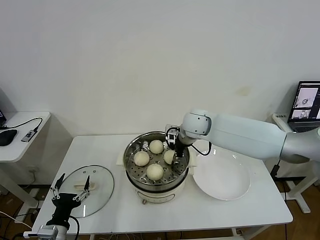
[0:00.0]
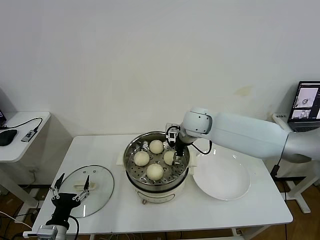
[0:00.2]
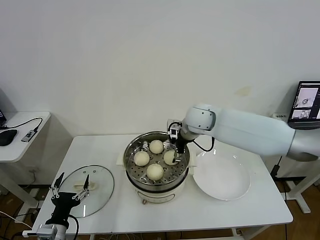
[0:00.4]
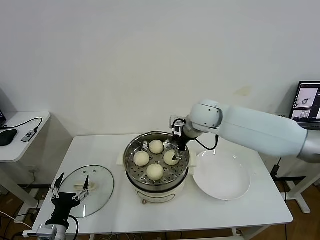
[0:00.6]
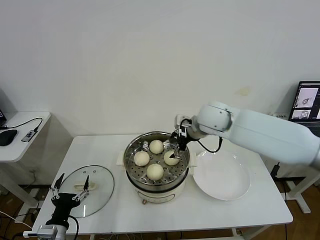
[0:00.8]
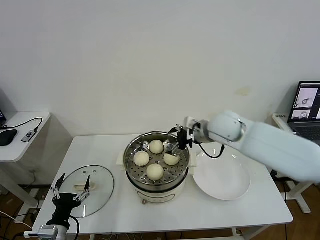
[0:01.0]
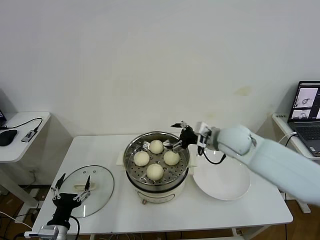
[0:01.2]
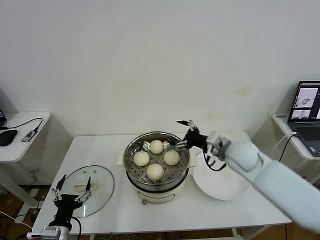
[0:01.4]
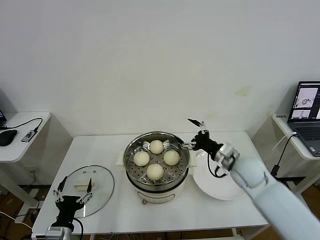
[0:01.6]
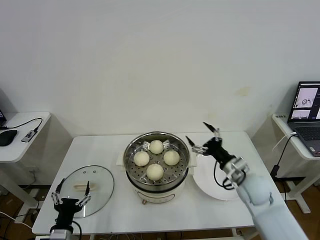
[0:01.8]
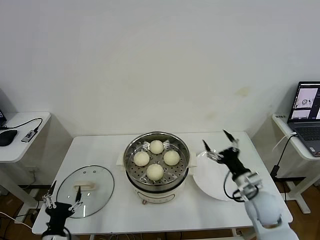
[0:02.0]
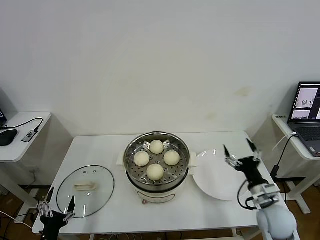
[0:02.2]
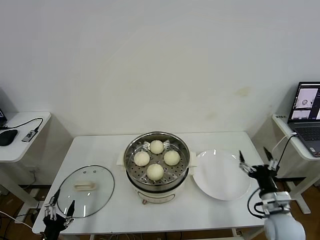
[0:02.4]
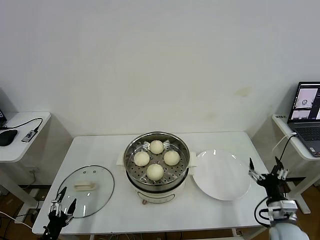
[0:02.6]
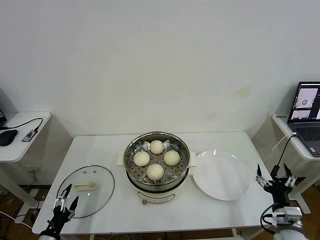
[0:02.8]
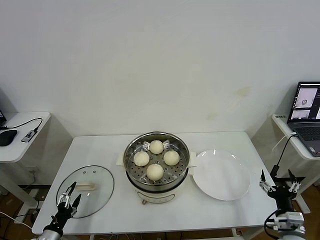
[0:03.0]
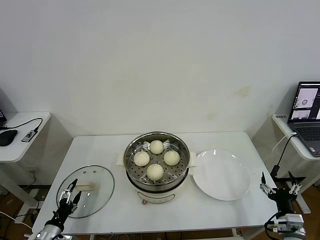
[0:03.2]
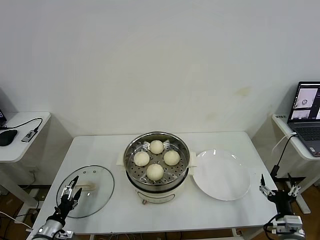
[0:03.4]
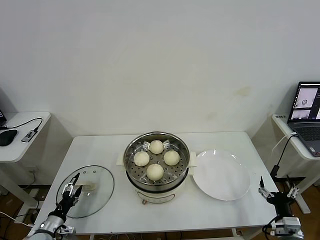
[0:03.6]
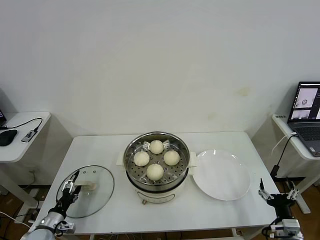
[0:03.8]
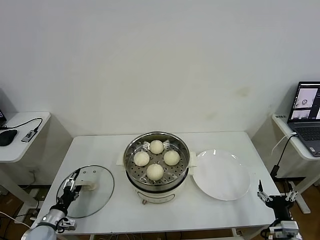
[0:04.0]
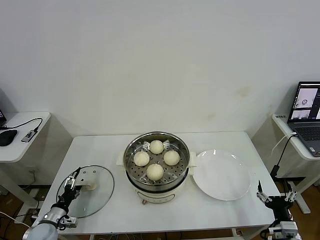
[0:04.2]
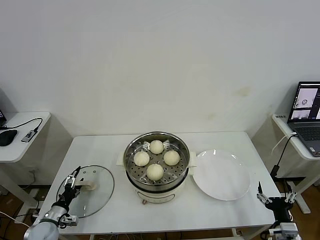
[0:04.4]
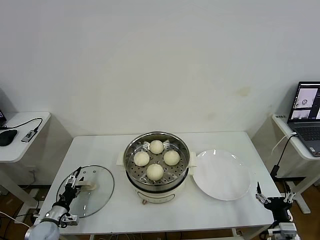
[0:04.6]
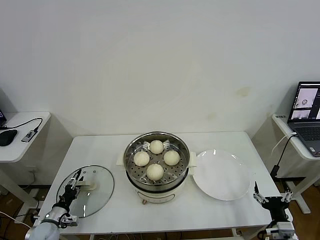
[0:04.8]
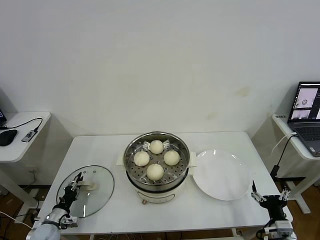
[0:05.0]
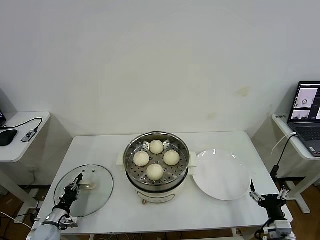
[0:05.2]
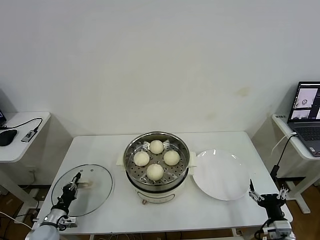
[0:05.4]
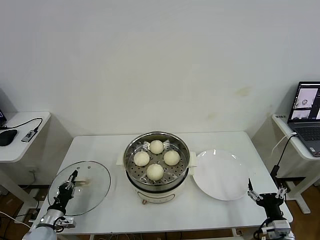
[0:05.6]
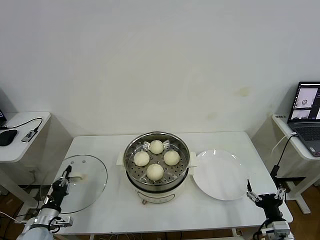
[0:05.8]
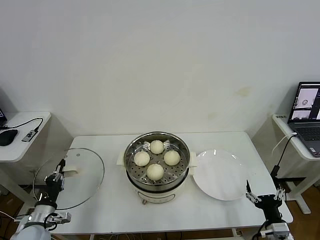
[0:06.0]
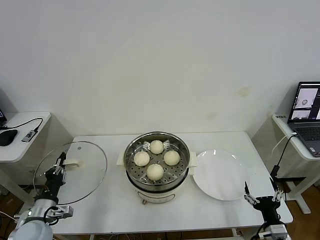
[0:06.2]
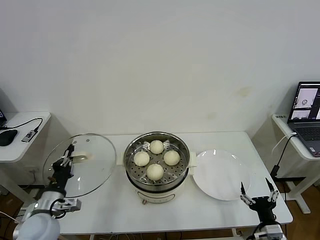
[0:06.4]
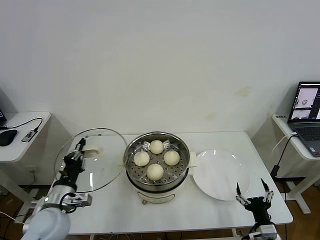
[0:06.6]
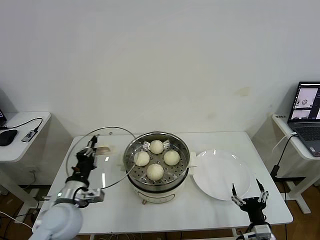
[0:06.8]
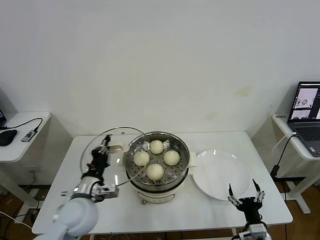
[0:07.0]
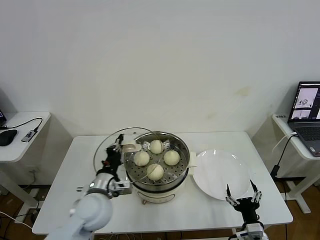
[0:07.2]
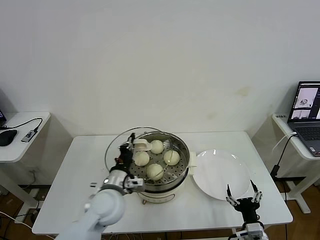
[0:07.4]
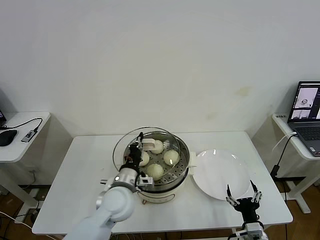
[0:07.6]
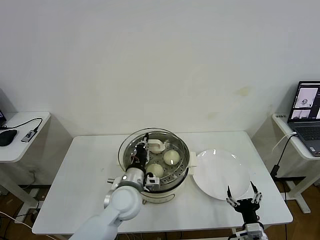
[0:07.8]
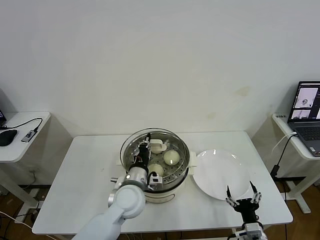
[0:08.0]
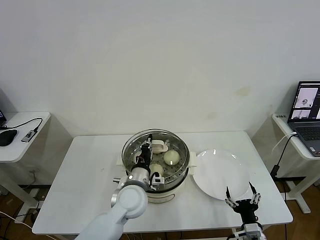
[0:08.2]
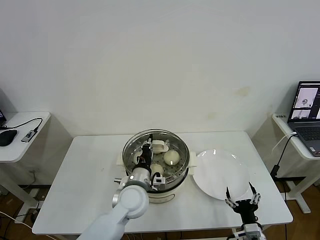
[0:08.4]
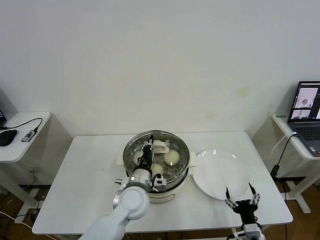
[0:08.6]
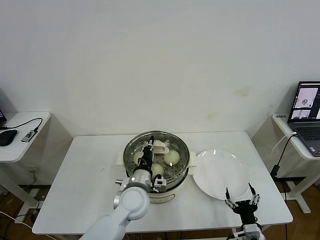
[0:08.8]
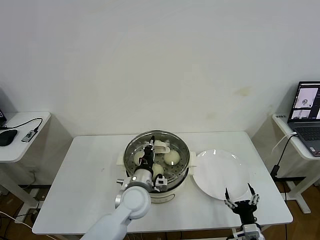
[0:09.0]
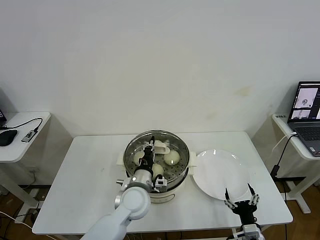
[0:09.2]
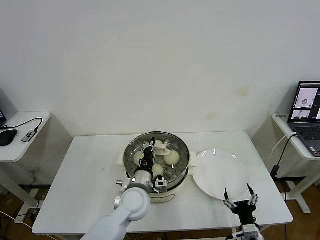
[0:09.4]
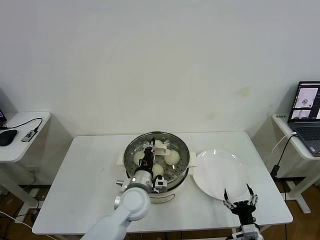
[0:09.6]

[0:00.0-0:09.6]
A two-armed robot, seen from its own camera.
Task of the whole recording: take steamed baozi put them in steamer then cover it.
Step, 0.6 to 5.4 s: Grasp the pot lid with left gripper.
0.0 to 1.6 s: The right gripper travels to the right, backward and downward by about 20 cm, and opens its fingers.
1.6 to 3.2 s: The right gripper moves backward, to the right and downward, about 25 cm. The left gripper shifts some 15 cm to the left and downward.
3.2 to 4.8 s: The left gripper is displaced forward by about 10 cm.
4.8 to 6.4 s: The left gripper goes approximately 20 cm upward and to the right, and closes up.
6.4 to 8.0 s: The right gripper shifts by some 5 cm, while the left gripper moves to the right, about 25 cm.
8.0 to 9.6 s: The grippers move only a little.

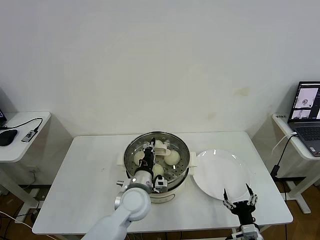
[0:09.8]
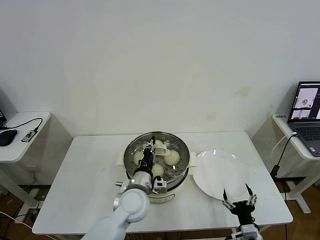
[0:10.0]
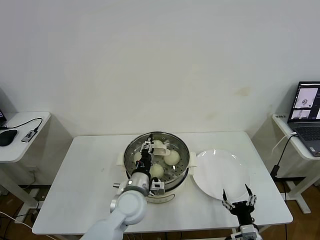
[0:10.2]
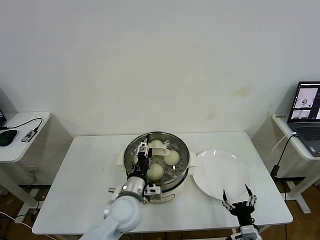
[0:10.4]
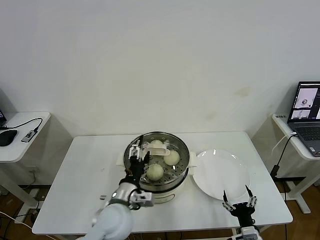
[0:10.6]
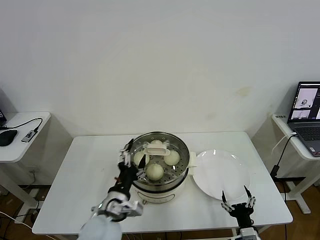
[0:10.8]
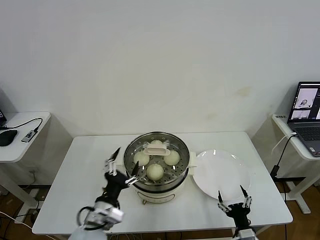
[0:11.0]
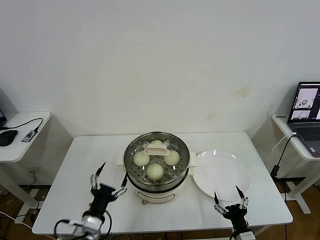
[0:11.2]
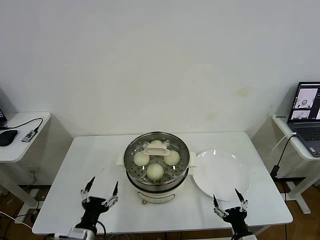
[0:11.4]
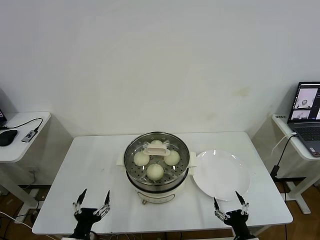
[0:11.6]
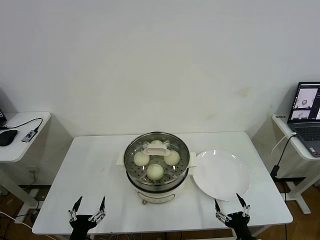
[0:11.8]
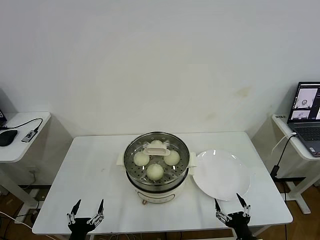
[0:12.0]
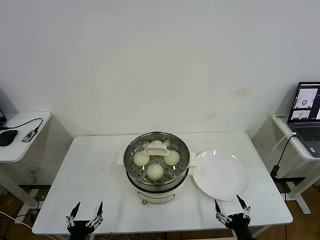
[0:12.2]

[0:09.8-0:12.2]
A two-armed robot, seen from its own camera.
Task of the whole recording: take steamed baozi put them in steamer then cover it.
9.8 to 11.0 s: The left gripper travels backward and to the left by roughly 15 cm, and opens its fingers.
11.0 to 12.2 s: The left gripper is displaced downward, to the left and backward by approximately 20 cm.

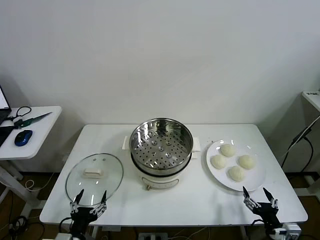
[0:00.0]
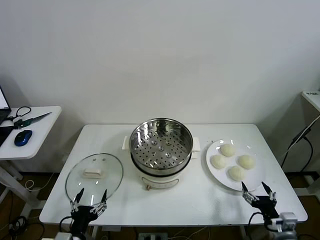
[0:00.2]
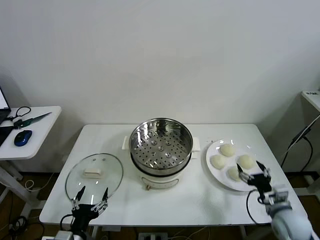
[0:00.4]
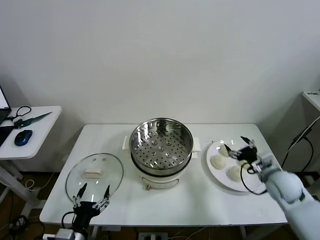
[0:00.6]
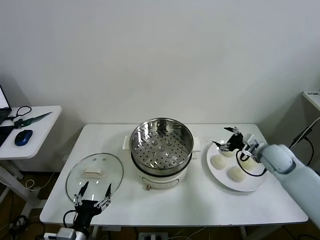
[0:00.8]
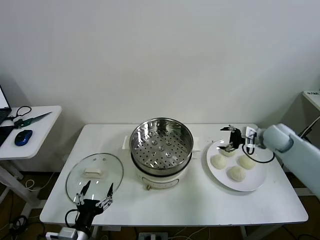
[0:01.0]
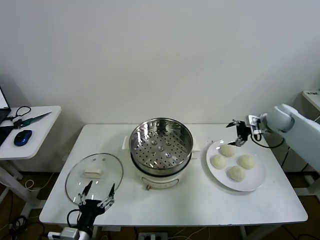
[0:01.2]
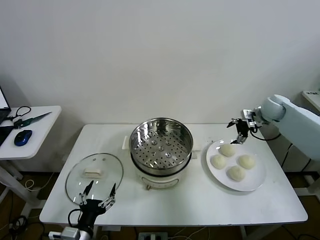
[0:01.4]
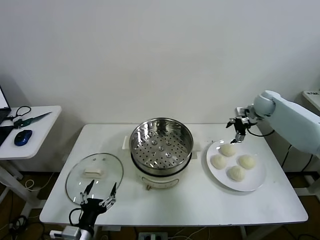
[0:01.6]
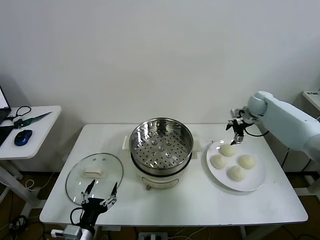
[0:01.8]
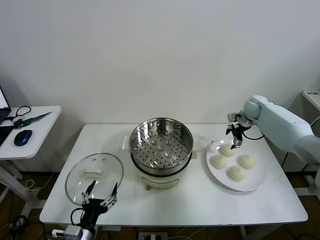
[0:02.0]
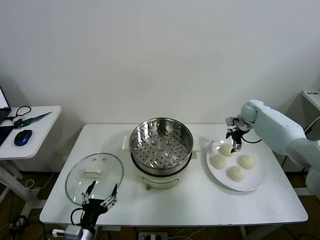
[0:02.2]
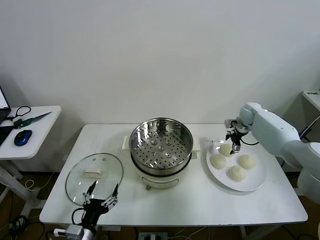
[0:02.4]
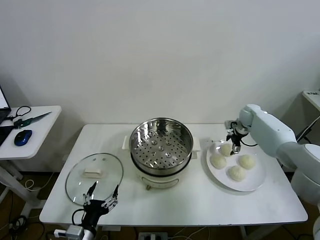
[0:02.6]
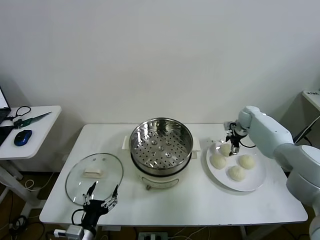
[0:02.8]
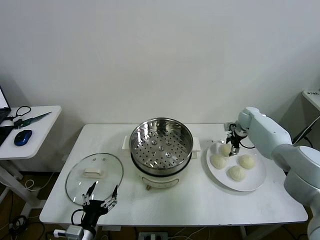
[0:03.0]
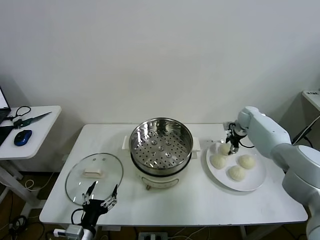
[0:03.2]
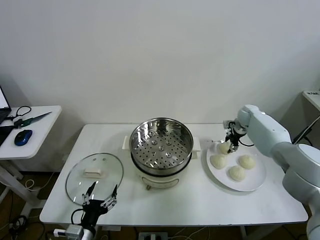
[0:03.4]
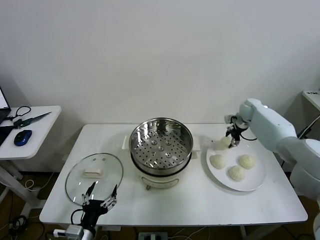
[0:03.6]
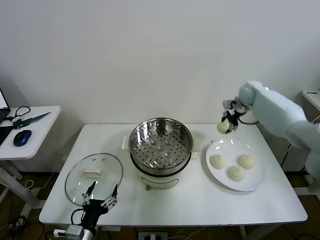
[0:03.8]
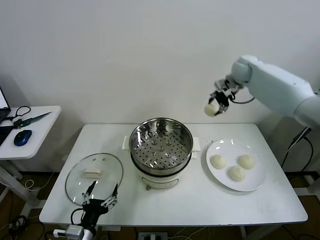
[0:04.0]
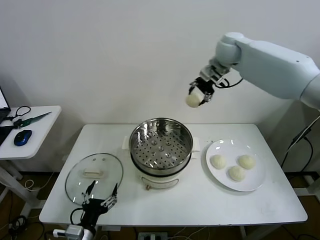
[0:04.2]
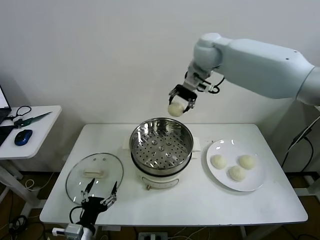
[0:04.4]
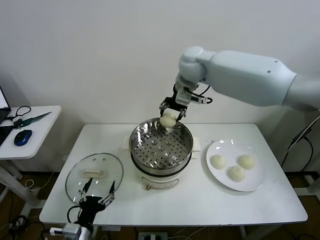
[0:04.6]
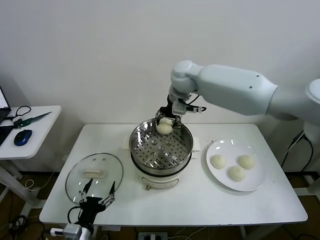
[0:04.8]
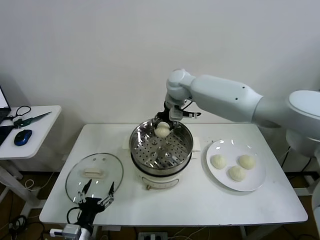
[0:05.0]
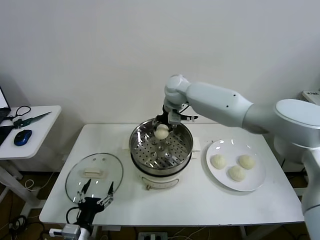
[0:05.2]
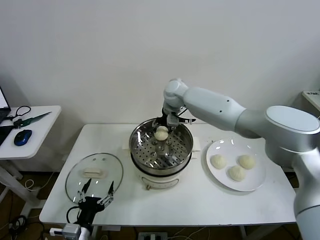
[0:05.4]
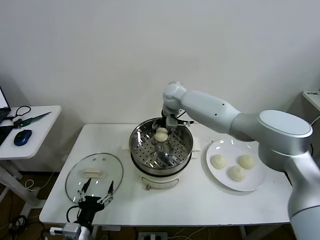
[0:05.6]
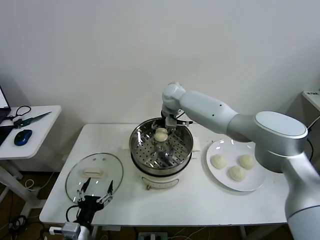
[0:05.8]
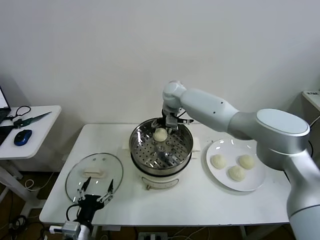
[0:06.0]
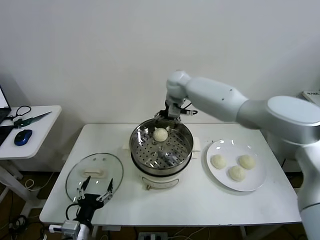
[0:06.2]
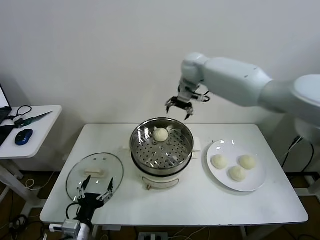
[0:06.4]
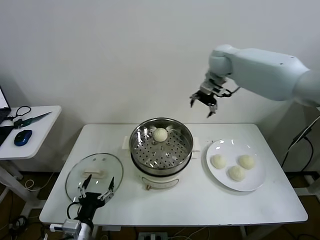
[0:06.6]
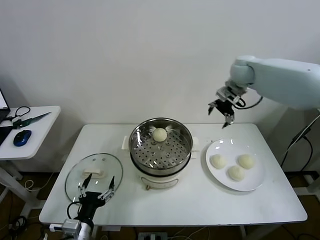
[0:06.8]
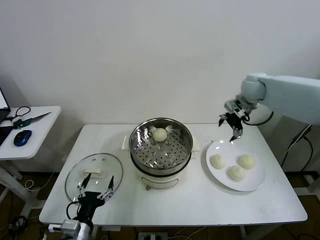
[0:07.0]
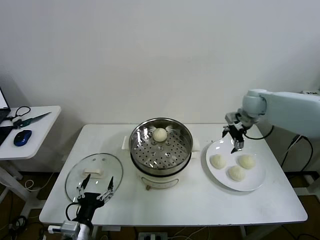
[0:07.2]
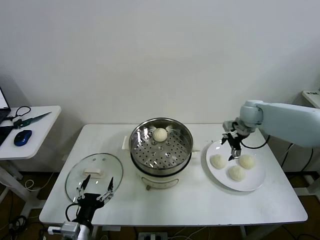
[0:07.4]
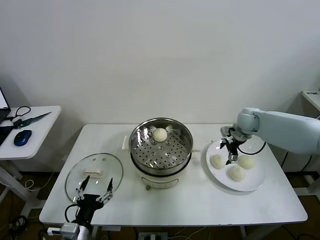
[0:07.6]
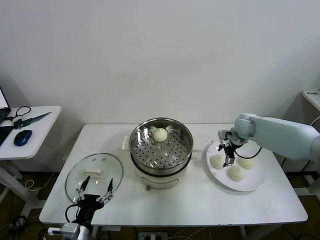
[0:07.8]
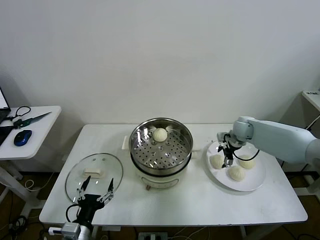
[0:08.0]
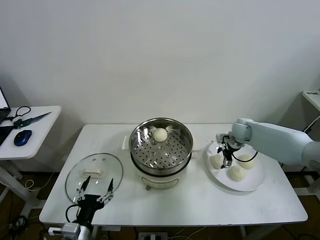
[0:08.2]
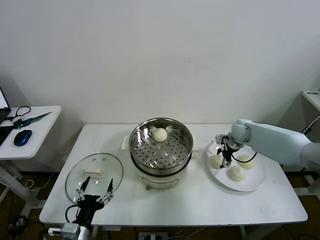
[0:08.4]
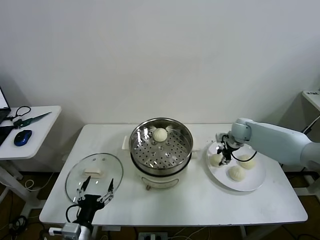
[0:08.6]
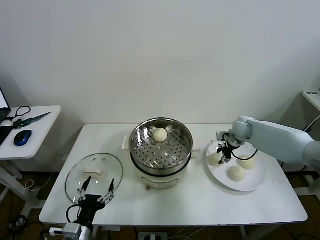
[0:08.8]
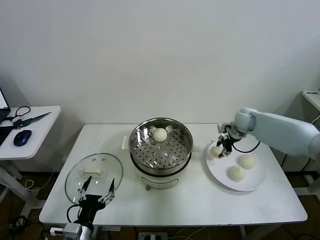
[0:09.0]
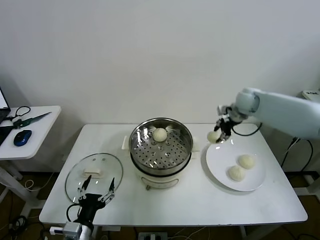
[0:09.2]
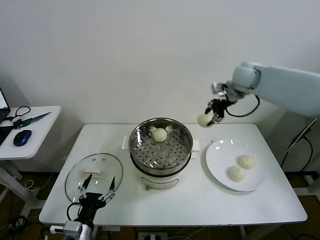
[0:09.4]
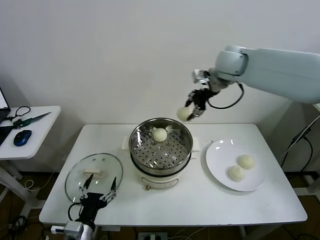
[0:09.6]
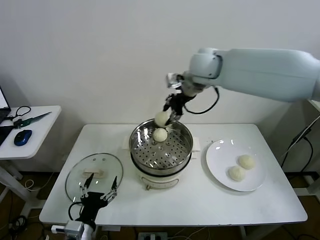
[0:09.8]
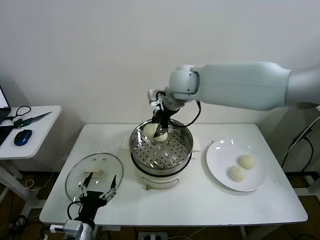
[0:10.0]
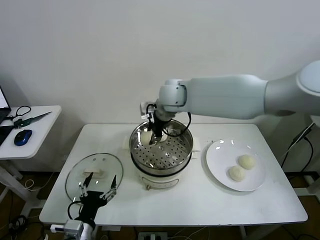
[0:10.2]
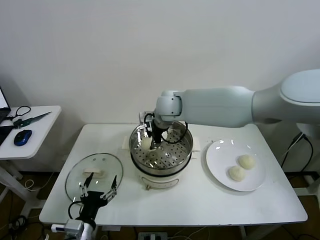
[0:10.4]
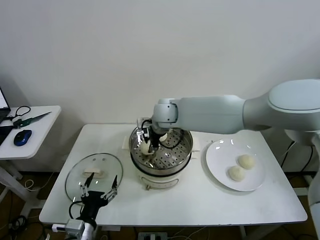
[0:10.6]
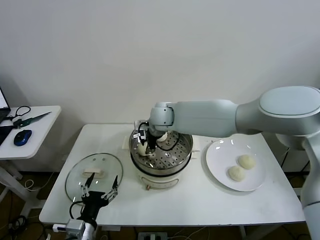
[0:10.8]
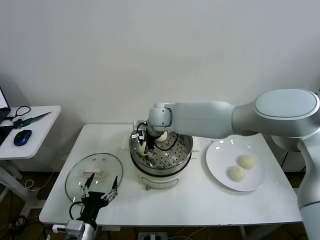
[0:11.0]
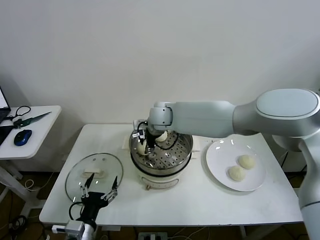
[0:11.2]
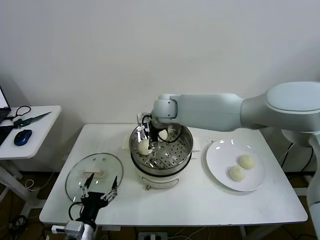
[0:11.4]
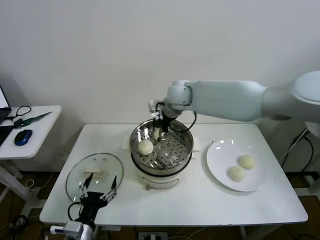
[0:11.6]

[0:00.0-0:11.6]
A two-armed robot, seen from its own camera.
Task of the whole recording: take steamed baozi put them in steamer then cover it.
Step, 0.0 to 3.0 s: Grasp the baozi in the plate with right gripper.
Step, 3.2 to 6.4 s: Place the baozi on the steamer with right gripper.
Step, 6.6 to 8.6 s: Grasp the baozi in the plate with right gripper.
Step, 8.8 to 11.4 s: Place the baozi on the steamer with right gripper.
1.4 to 2.8 s: The right gripper travels downward by about 10 cm.
2.8 to 4.4 s: The right gripper goes roughly 40 cm upward and to the left, and closes up.
4.4 to 5.8 s: The right gripper heads downward, covering approximately 15 cm, and opens its fingers.
5.8 to 7.2 s: The right gripper goes some 30 cm to the right.
7.2 to 8.8 s: The right gripper shifts some 5 cm downward, and closes.
8.8 to 10.2 s: The right gripper is displaced to the left and upward by about 35 cm.
10.2 to 11.6 s: The right gripper travels to the right by roughly 10 cm, and opens its fingers.
